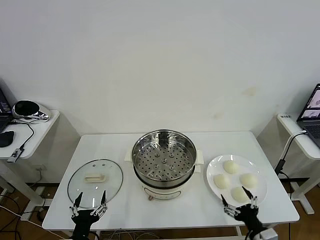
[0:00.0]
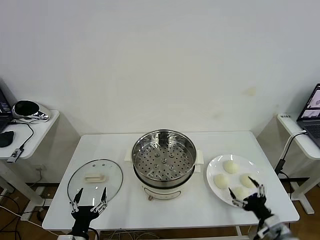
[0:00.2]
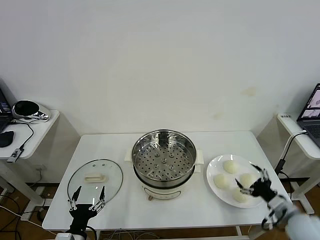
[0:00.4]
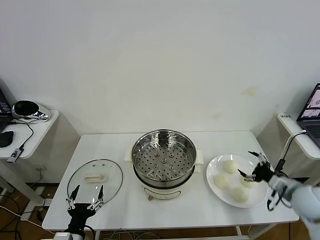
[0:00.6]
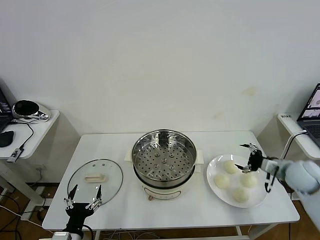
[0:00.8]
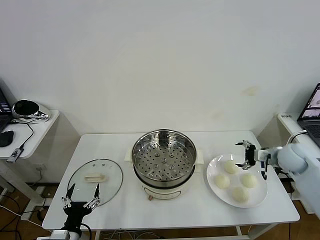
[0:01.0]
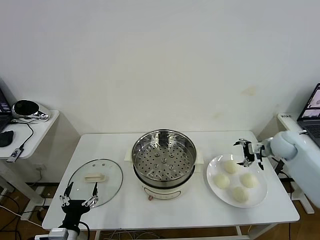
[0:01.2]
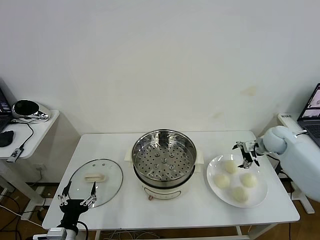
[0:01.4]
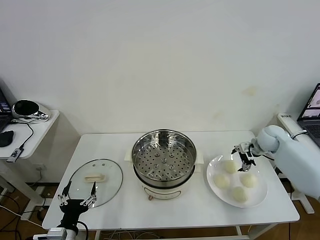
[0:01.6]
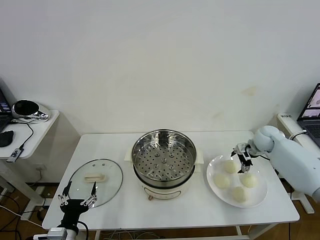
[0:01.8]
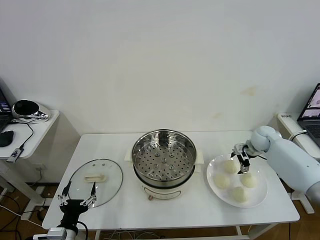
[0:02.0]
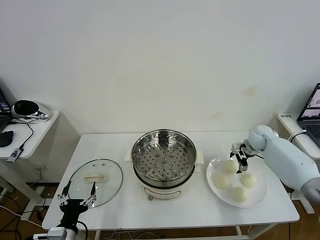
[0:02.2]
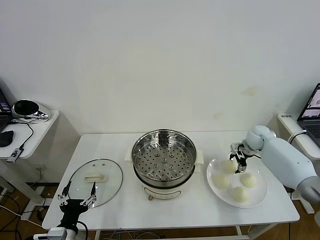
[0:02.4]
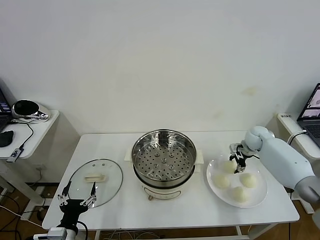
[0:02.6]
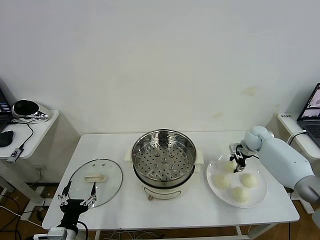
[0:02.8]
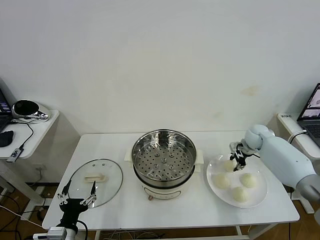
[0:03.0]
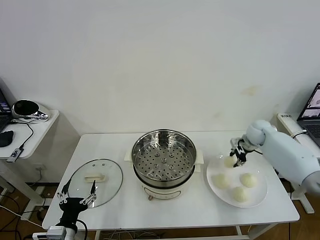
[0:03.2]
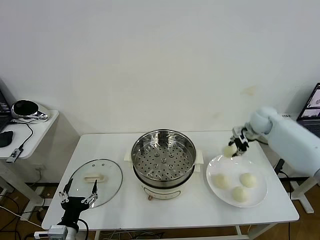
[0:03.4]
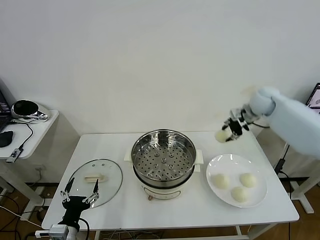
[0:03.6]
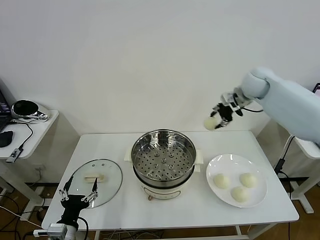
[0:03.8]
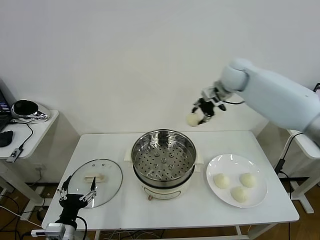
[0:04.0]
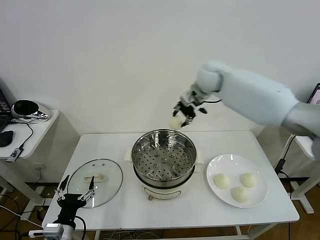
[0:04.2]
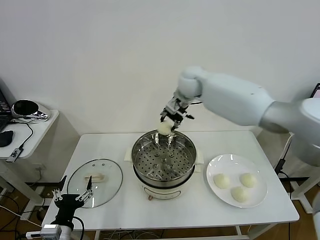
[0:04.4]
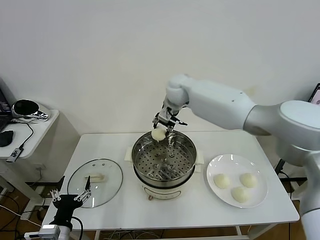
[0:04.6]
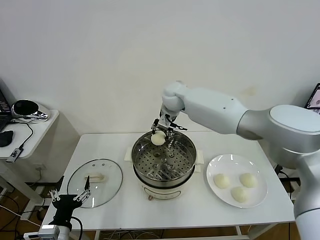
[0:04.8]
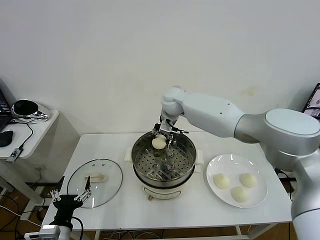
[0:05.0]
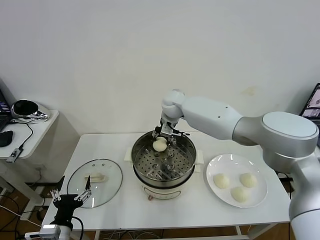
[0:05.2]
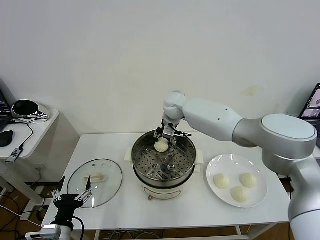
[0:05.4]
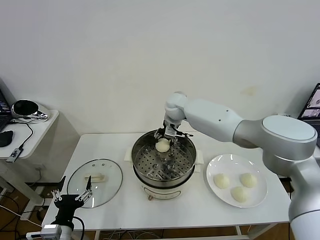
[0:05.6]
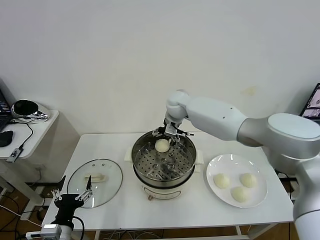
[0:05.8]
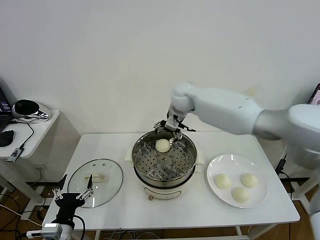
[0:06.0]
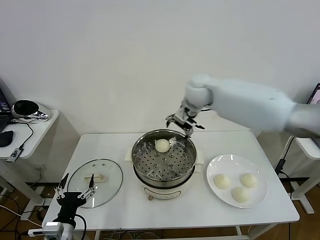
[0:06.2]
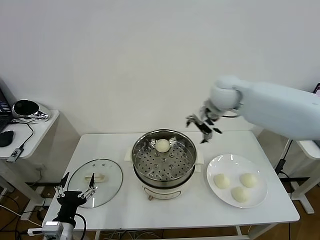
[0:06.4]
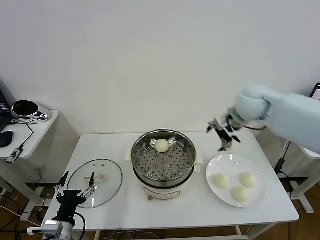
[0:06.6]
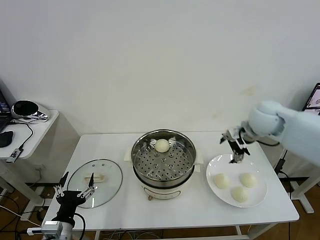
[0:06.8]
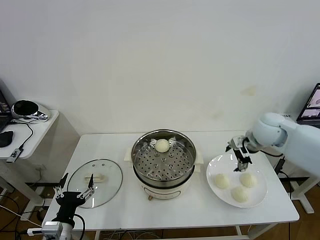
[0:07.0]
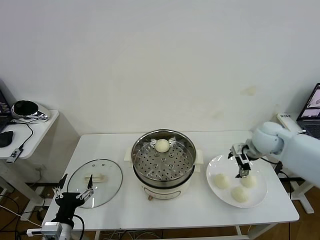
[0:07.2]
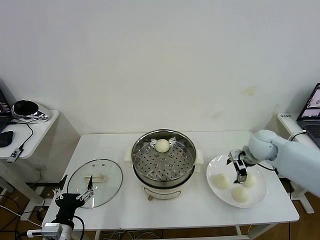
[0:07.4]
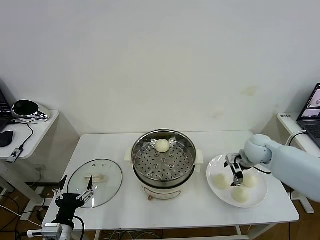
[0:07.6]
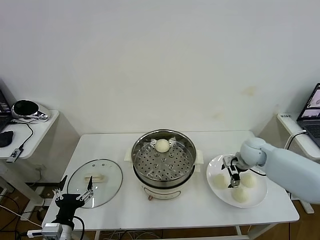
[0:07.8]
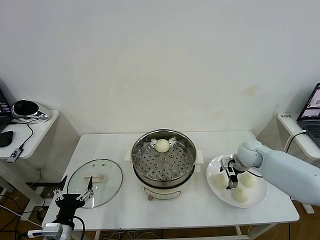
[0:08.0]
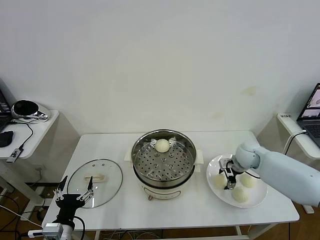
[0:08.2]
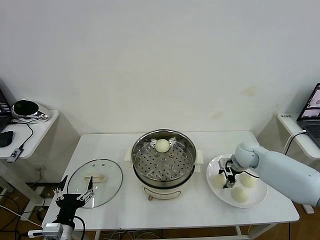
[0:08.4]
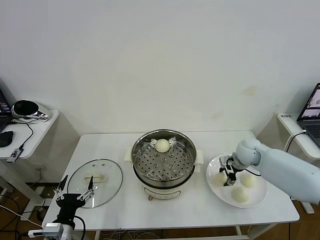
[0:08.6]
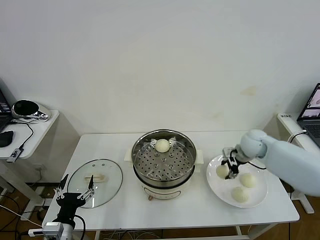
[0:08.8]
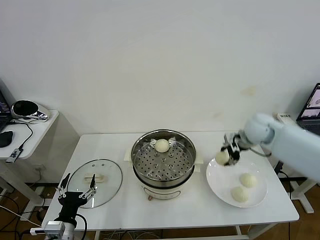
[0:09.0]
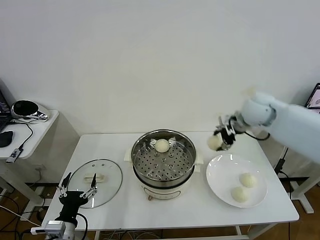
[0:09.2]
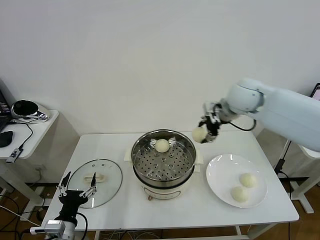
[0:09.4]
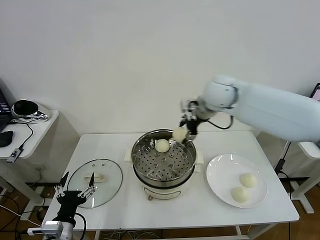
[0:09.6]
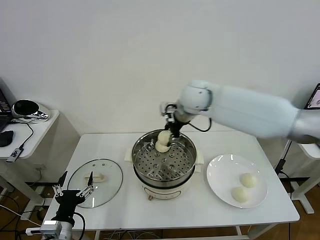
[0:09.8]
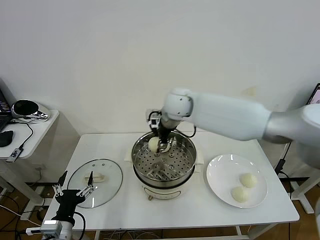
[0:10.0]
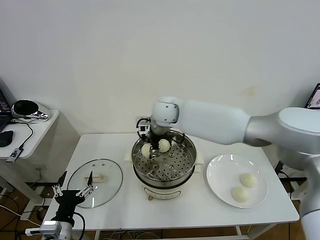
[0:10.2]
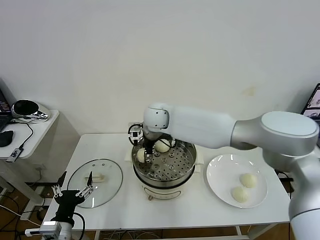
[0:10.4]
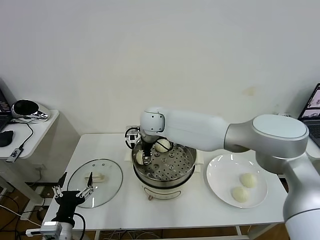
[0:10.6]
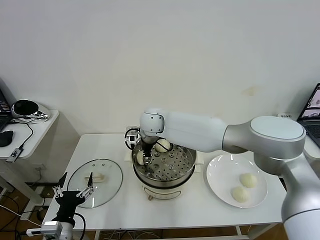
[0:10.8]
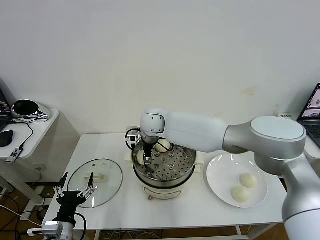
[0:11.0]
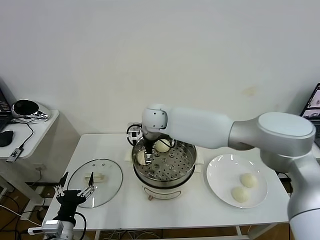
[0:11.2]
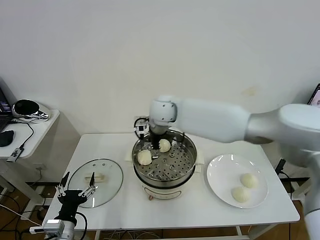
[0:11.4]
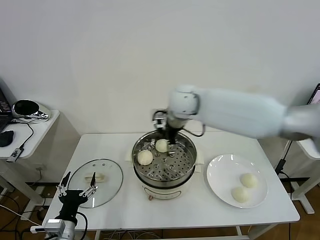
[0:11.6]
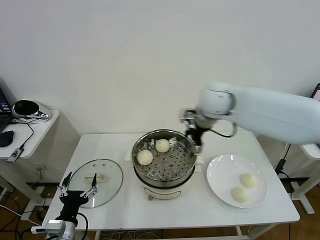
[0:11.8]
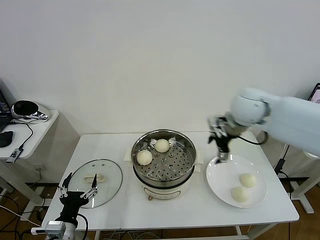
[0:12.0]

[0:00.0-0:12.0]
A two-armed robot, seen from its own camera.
Task of the whole recording: take steamed baozi put them in steamer then cover it.
Step, 0:00.0 to 0:02.6: Grasp the baozi in the plate with right gripper.
Step, 0:02.8 to 0:05.8: Place the baozi on the steamer with right gripper.
Step, 0:06.0 to 0:08.4: Grasp the baozi in the plate with right gripper.
Step, 0:08.6 to 0:11.2: Place the baozi on the steamer with right gripper.
0:01.6 to 0:03.0: The right gripper shifts by approximately 5 cm, and closes up.
0:03.0 to 0:04.4: The right gripper is displaced to the left and upward by roughly 35 cm.
0:04.4 to 0:06.0: The right gripper opens up.
0:06.0 to 0:07.6: The right gripper goes some 30 cm to the right, downward and backward.
0:07.6 to 0:09.0: The right gripper heads upward, covering about 10 cm, and closes its fingers.
0:09.0 to 0:10.4: The right gripper is displaced to the left by about 35 cm.
0:10.4 to 0:12.0: The right gripper is displaced to the right by about 25 cm, and opens.

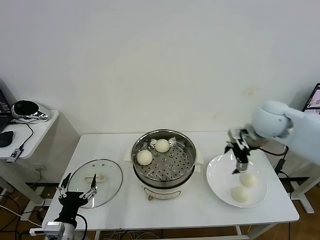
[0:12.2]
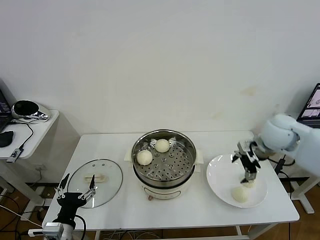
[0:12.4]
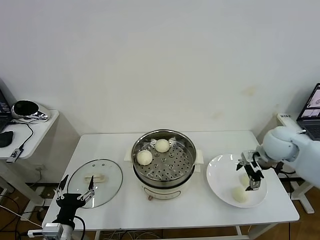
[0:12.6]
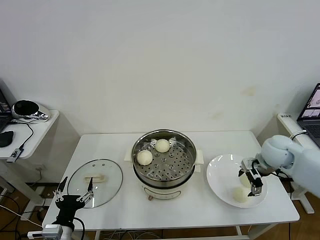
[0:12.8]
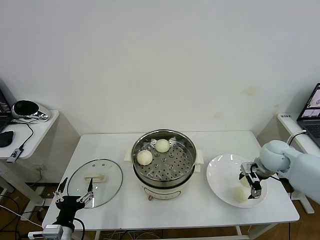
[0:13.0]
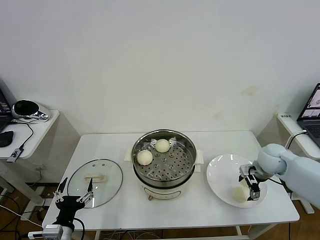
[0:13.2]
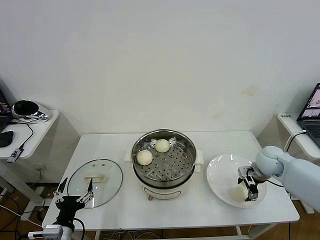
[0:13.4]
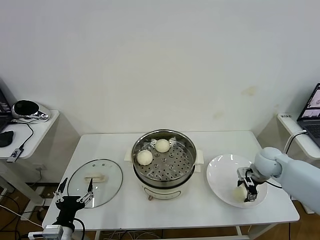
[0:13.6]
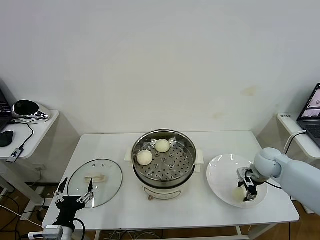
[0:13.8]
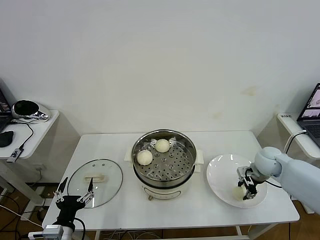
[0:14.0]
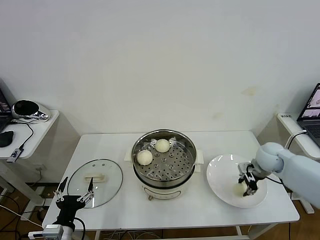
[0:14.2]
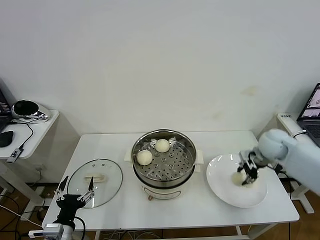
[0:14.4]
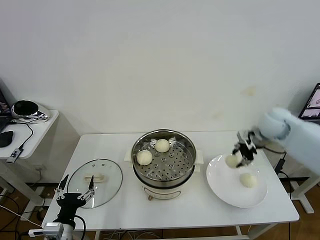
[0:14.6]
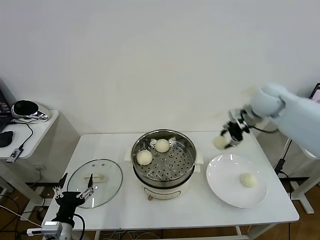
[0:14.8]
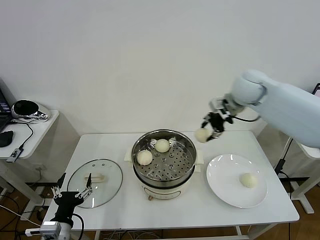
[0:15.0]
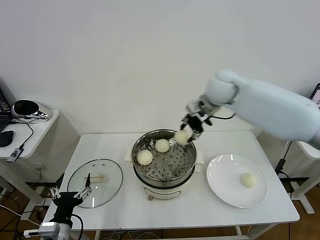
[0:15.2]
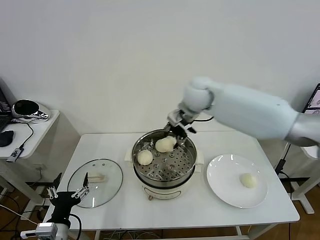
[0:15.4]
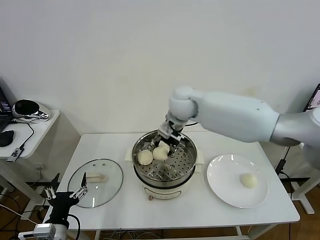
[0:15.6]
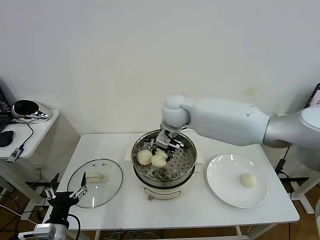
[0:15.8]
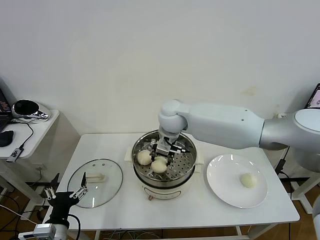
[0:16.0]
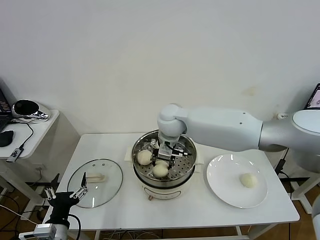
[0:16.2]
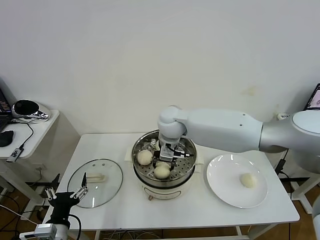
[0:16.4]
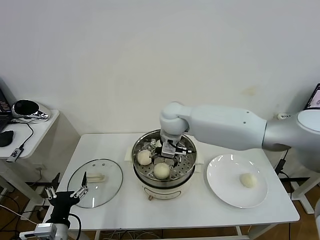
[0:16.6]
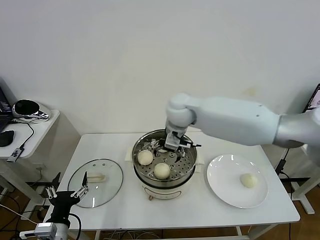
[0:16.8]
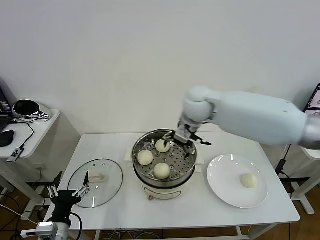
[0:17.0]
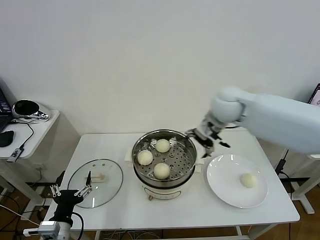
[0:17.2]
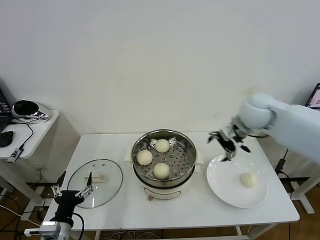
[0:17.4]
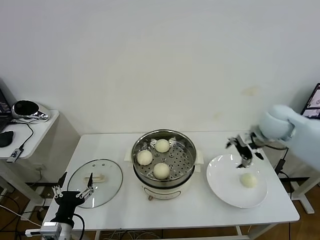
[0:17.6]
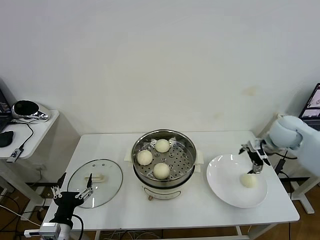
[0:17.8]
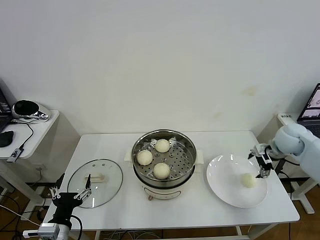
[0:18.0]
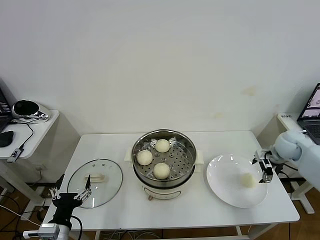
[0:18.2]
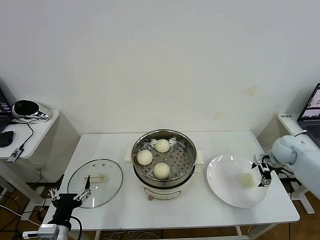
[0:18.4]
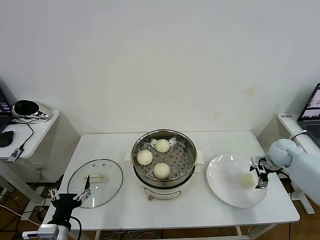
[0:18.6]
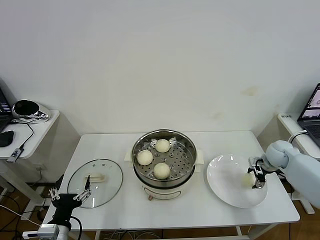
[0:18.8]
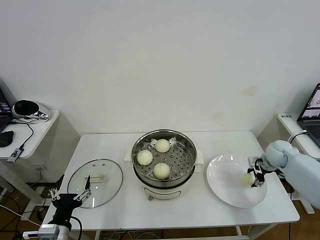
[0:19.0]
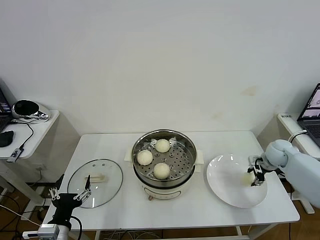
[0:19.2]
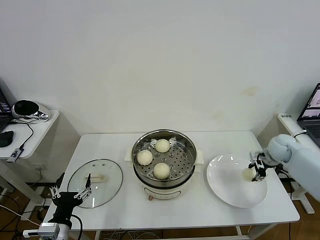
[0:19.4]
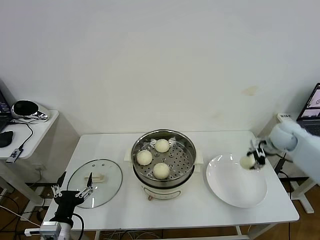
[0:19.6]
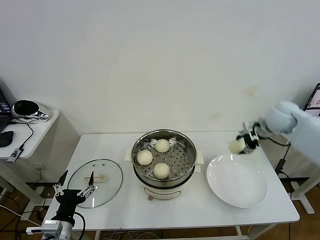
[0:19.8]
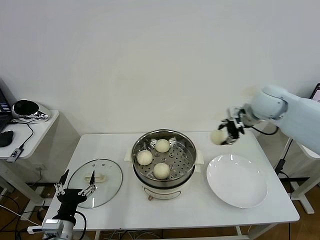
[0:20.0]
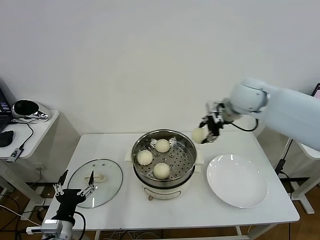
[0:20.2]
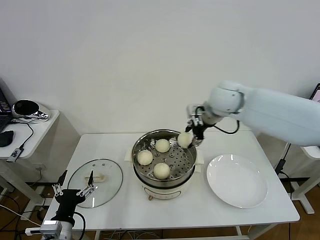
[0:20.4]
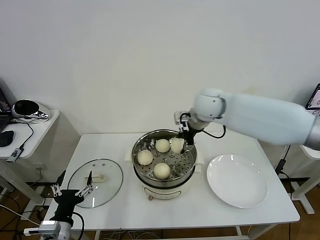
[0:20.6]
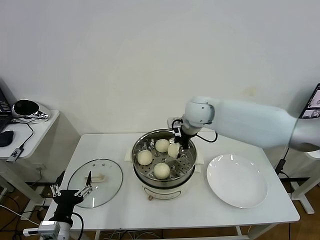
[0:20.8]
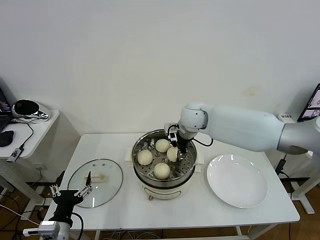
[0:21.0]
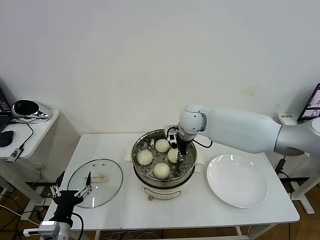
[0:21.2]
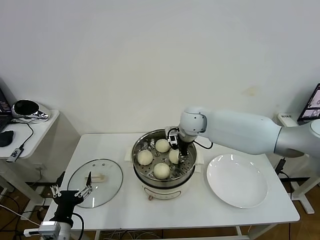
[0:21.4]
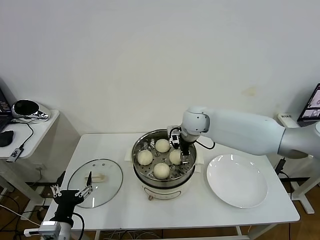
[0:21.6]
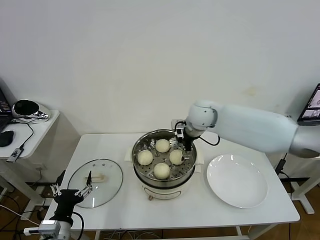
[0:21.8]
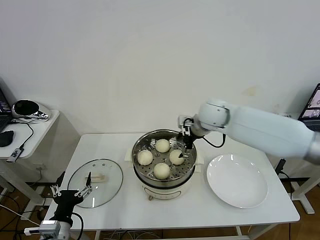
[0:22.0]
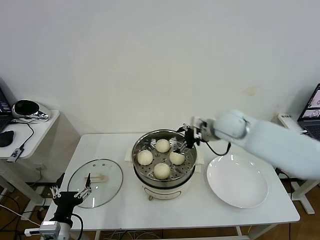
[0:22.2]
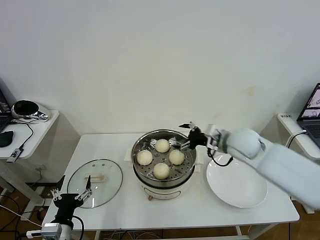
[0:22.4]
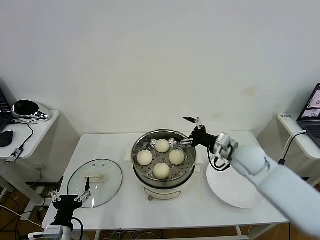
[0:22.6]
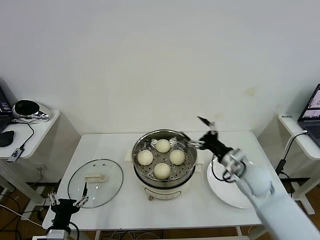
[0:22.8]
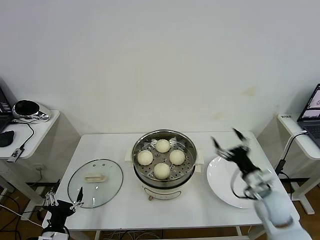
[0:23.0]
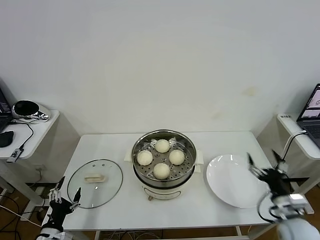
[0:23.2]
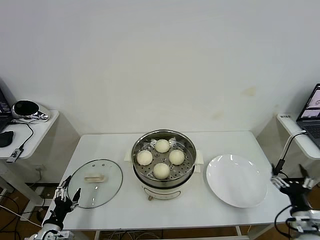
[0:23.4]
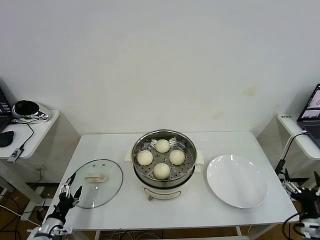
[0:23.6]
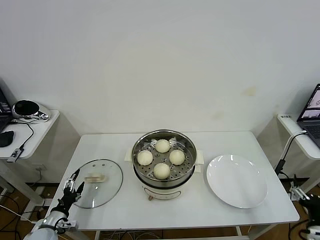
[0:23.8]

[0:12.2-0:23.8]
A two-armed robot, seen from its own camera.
Task of the whole recording: take steamed baozi put them in steamer then cover it.
Step, 0:12.2 to 0:13.8: Grasp the baozi in the plate with right gripper.
Step, 0:14.0 to 0:16.6: Place the baozi on the steamer with right gripper.
Step, 0:16.8 to 0:19.2: Grasp the baozi in the plate with right gripper.
Step, 0:19.4 to 0:21.8: Place the baozi on the steamer with right gripper.
0:12.2 to 0:13.6: The right gripper goes some 20 cm downward and to the right, and closes up.
0:13.6 to 0:15.0: The right gripper goes approximately 25 cm upward and to the left, and closes up.
0:15.0 to 0:16.6: The right gripper moves to the left and downward, about 25 cm, and opens.
0:16.6 to 0:18.0: The right gripper is displaced to the right by roughly 40 cm.
0:18.0 to 0:19.4: The right gripper moves downward, approximately 10 cm, and closes.
0:19.4 to 0:21.0: The right gripper travels to the left by some 35 cm.
0:21.0 to 0:22.4: The right gripper heads to the right and backward, covering approximately 15 cm, and opens up.
0:22.4 to 0:23.8: The right gripper goes about 40 cm backward, to the right and downward. Meanwhile the left gripper goes approximately 20 cm to the left, downward and forward.
